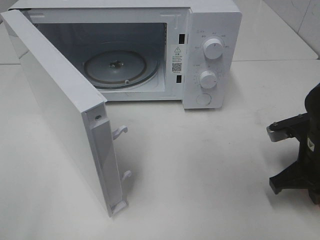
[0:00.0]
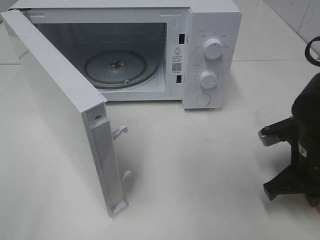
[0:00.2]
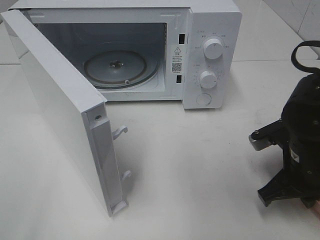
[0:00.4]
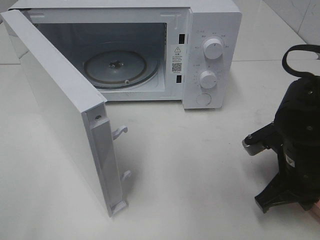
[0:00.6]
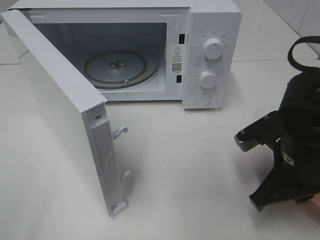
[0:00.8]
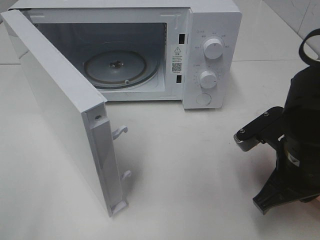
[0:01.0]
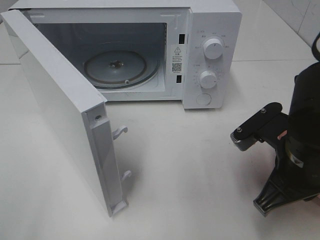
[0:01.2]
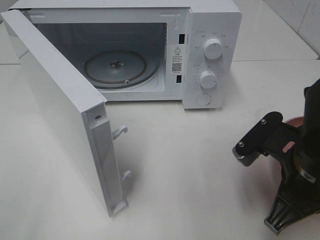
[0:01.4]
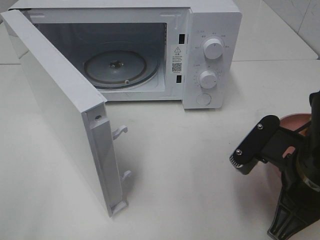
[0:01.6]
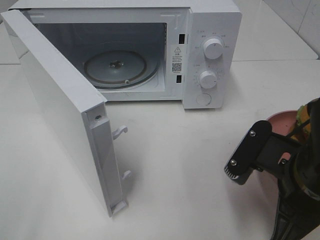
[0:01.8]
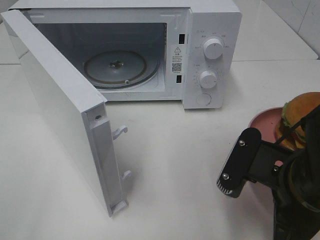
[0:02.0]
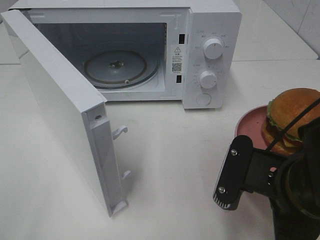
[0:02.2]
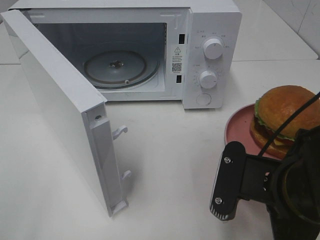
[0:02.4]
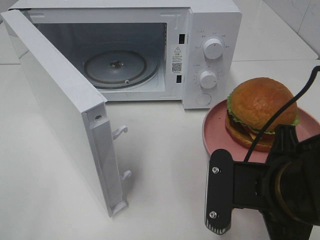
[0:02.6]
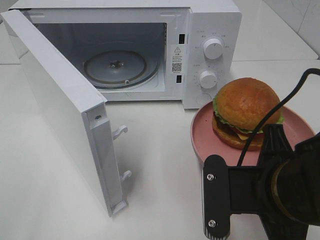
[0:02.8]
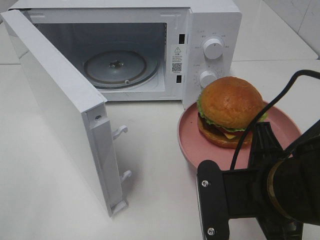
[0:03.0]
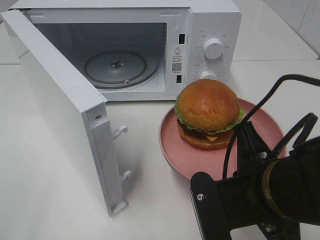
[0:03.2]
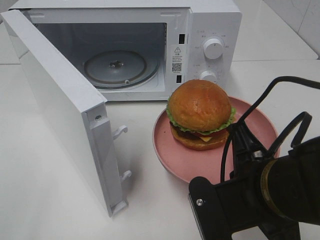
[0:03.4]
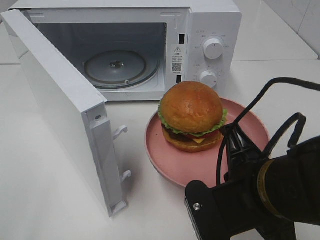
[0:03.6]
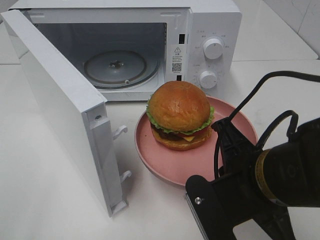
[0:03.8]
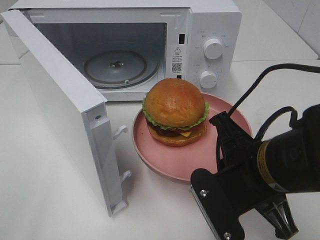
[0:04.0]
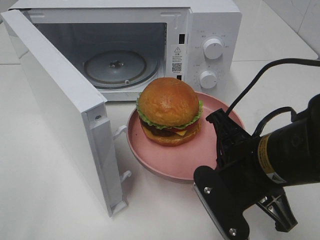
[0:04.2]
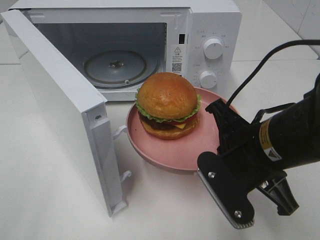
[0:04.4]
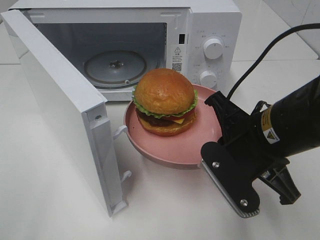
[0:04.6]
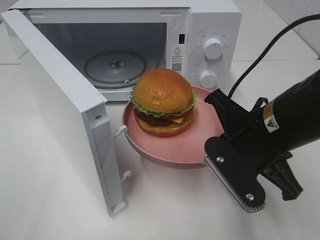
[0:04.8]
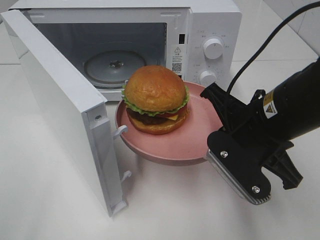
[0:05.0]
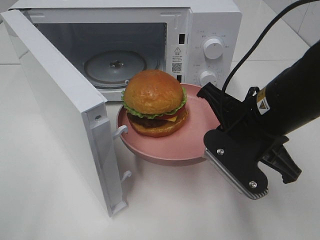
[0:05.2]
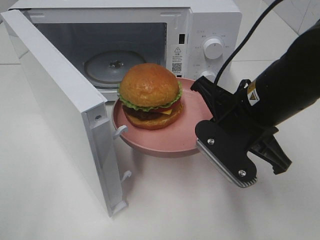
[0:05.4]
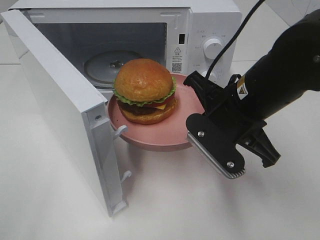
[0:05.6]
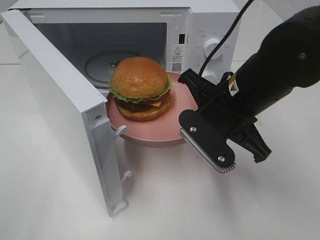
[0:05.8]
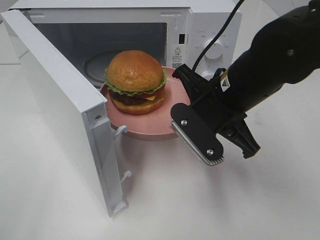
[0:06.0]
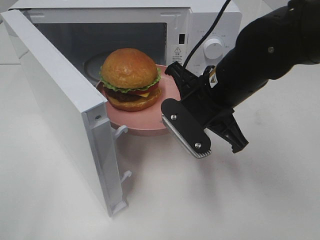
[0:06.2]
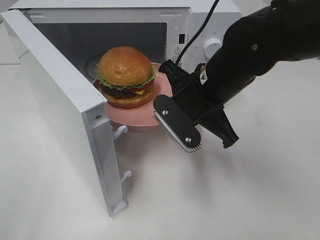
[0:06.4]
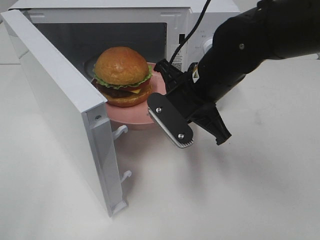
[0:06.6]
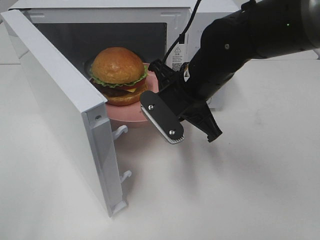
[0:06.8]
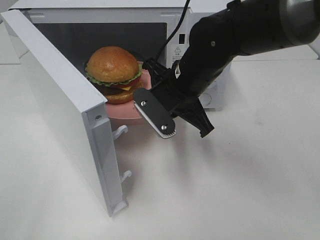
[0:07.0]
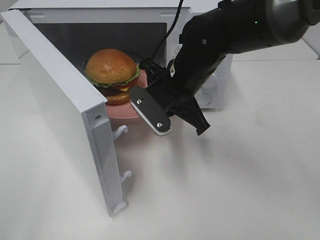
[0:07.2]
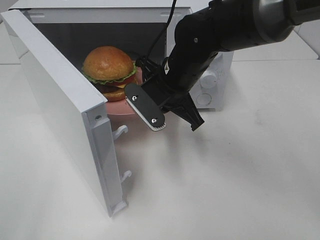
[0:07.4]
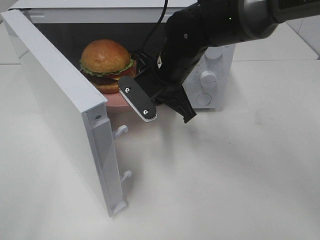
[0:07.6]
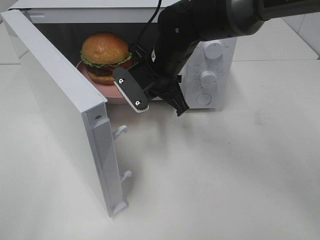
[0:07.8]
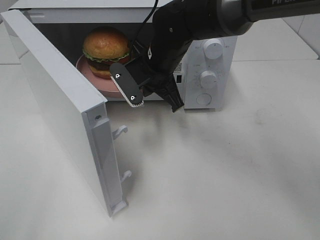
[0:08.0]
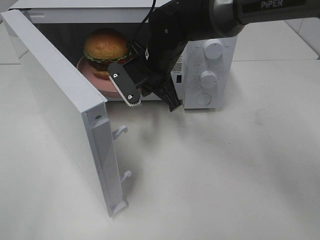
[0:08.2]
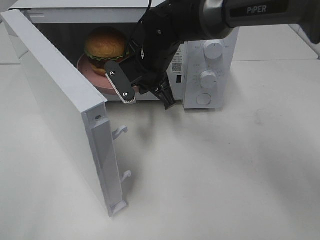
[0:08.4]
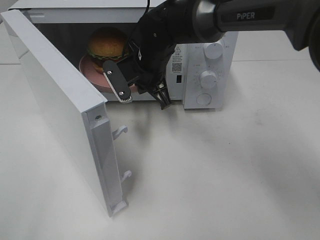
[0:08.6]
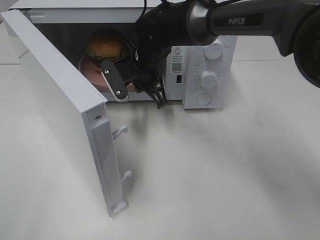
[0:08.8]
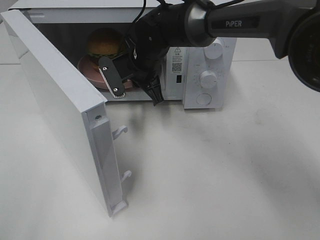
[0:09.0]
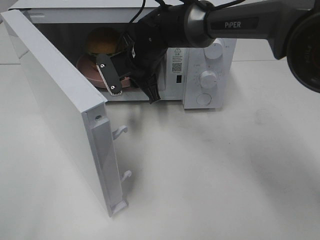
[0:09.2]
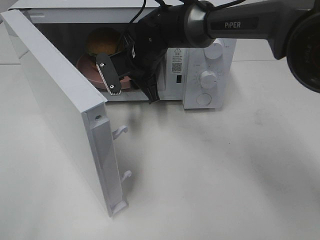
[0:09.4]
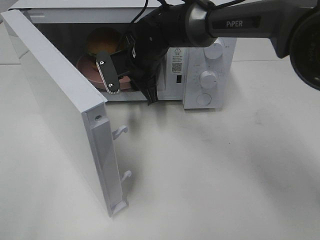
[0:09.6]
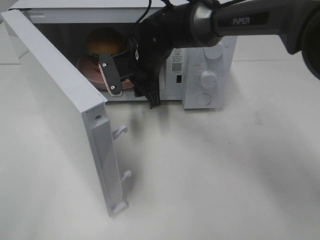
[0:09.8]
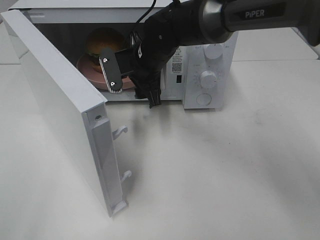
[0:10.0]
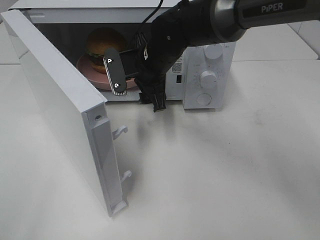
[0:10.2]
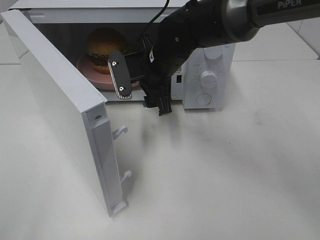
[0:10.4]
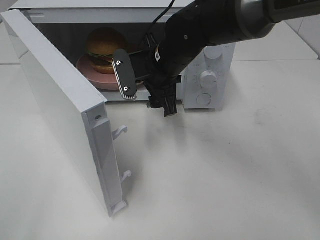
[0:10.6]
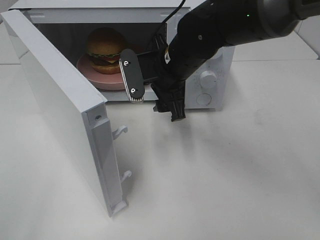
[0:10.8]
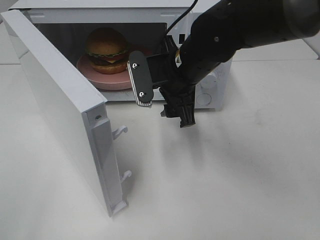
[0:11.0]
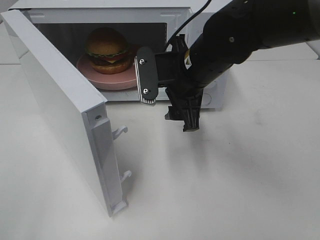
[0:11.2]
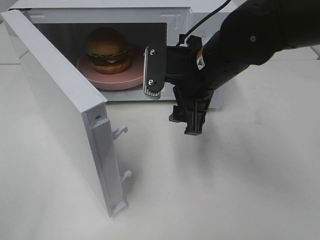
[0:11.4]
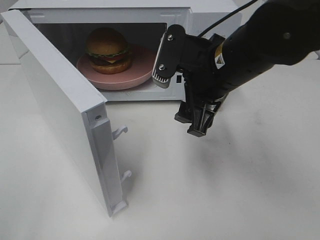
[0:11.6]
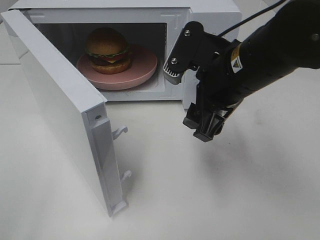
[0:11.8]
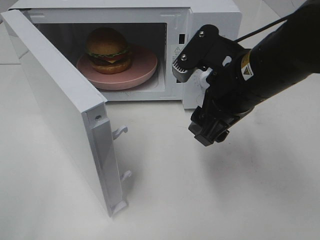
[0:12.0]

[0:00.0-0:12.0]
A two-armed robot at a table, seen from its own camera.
Task of the whole recording: Heat the burger.
Step, 0:00.0 to 0:09.4: Right hand: place the plate in the microwave.
0:00.0 to 0:01.6: The right gripper shifts about 10 cm backward, to the left and upward.
0:01.6 to 0:03.0: The right gripper ends up some 5 cm from where it was.
0:03.0 to 0:04.4: The right gripper travels forward by approximately 5 cm.
0:04.4 to 0:06.0: The right gripper moves forward, roughly 10 cm.
0:06.0 to 0:07.6: The right gripper shifts approximately 10 cm forward and to the left.
0:07.6 to 0:09.0: The right gripper travels forward by about 5 cm.
0:09.0 to 0:10.4: The right gripper shifts by some 5 cm, and opens.
0:10.4 to 0:12.0: The right gripper goes some 15 cm backward, to the right and upward.

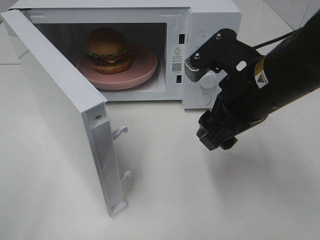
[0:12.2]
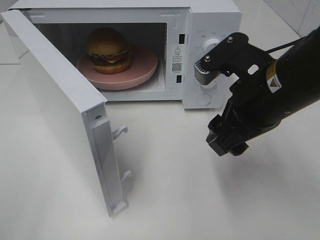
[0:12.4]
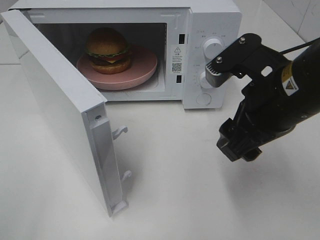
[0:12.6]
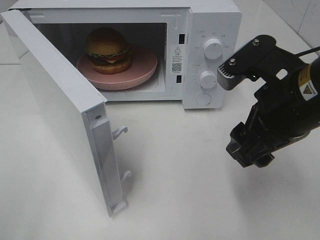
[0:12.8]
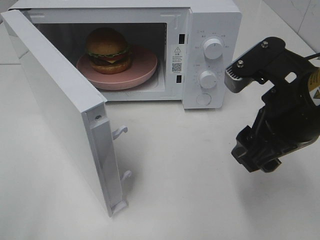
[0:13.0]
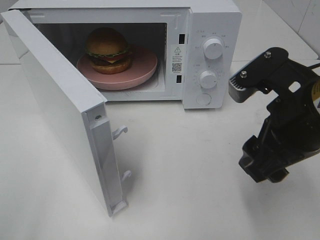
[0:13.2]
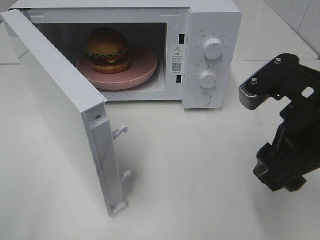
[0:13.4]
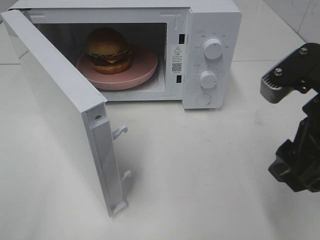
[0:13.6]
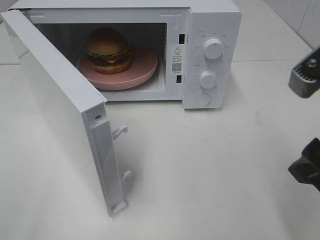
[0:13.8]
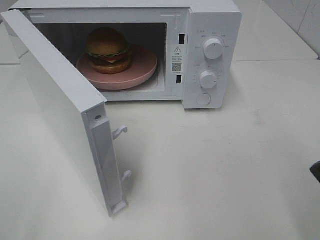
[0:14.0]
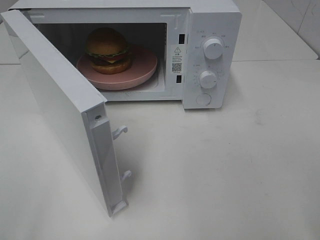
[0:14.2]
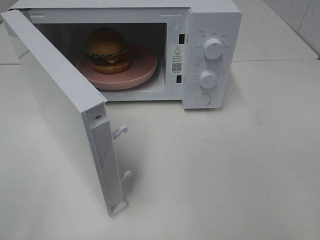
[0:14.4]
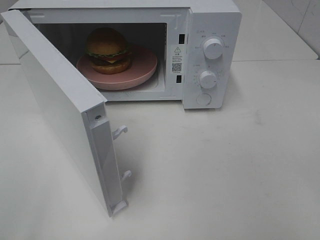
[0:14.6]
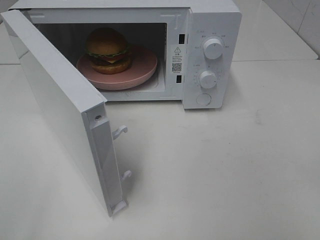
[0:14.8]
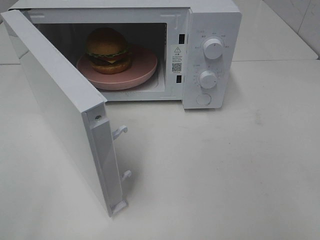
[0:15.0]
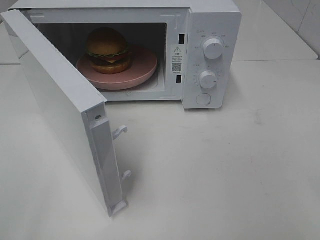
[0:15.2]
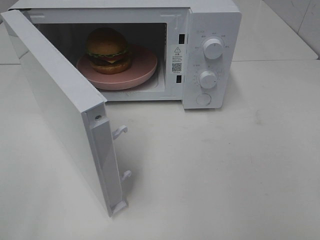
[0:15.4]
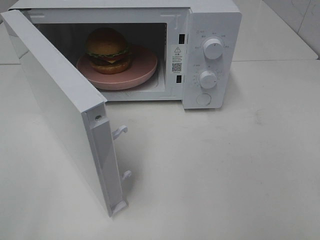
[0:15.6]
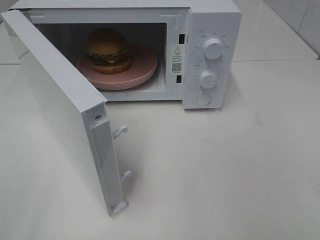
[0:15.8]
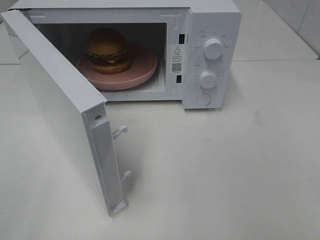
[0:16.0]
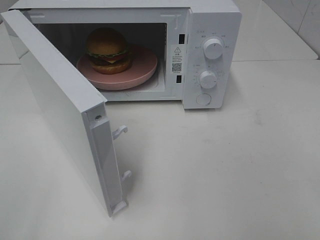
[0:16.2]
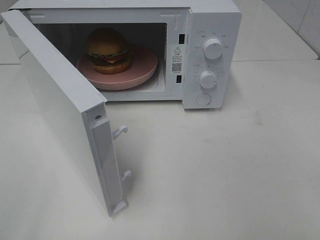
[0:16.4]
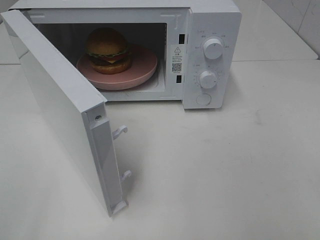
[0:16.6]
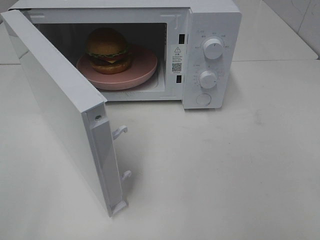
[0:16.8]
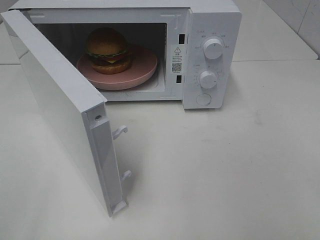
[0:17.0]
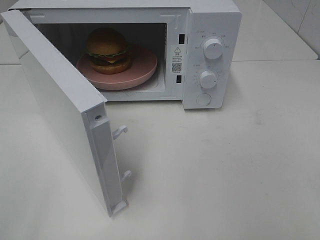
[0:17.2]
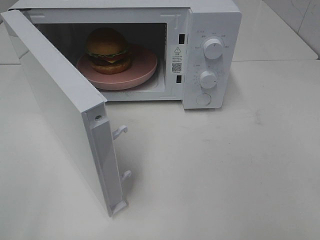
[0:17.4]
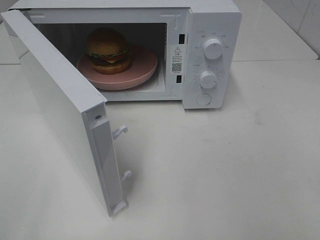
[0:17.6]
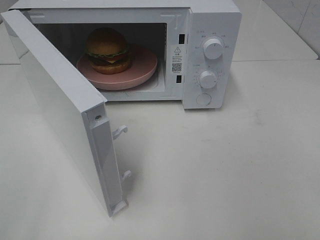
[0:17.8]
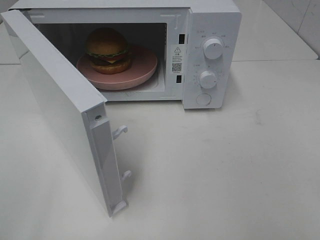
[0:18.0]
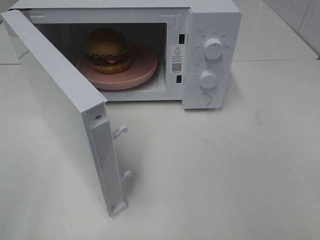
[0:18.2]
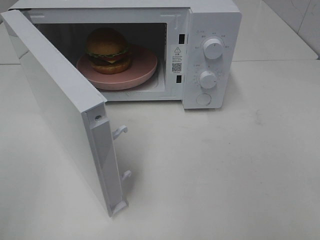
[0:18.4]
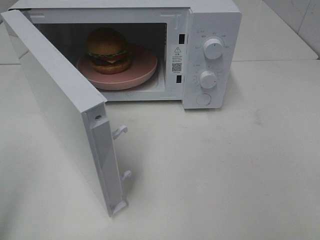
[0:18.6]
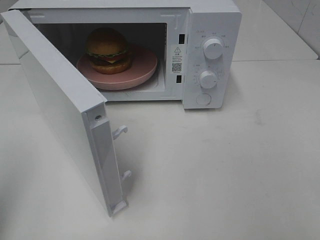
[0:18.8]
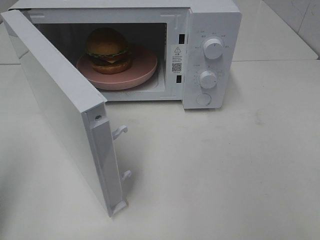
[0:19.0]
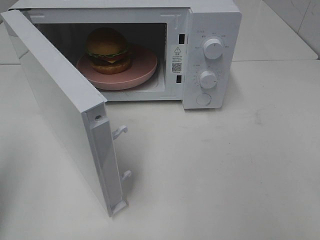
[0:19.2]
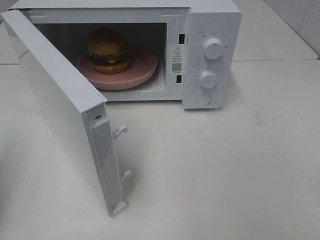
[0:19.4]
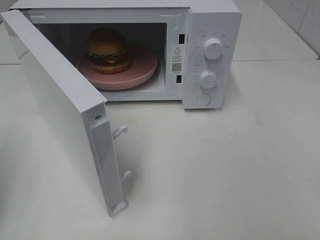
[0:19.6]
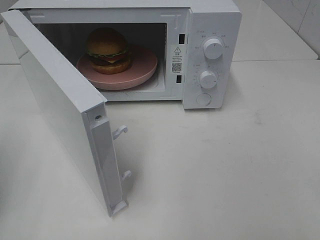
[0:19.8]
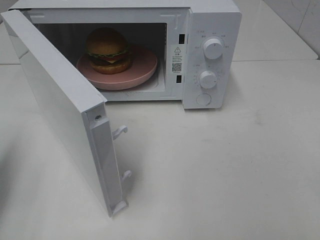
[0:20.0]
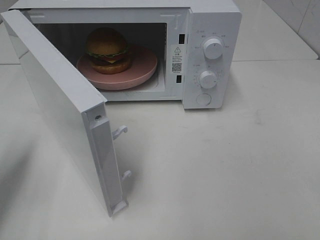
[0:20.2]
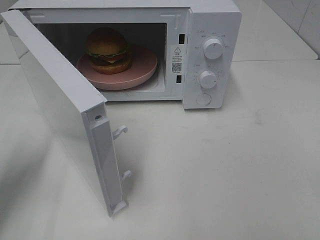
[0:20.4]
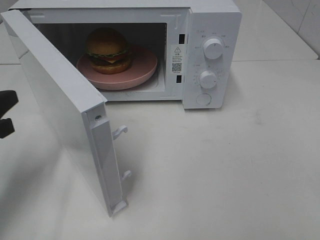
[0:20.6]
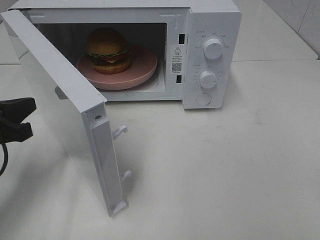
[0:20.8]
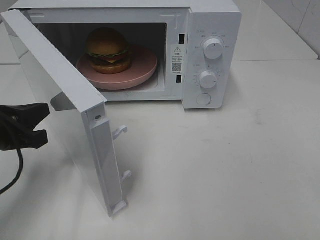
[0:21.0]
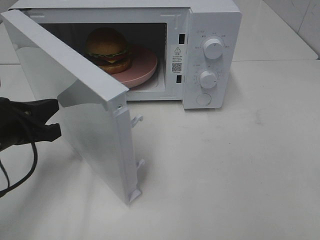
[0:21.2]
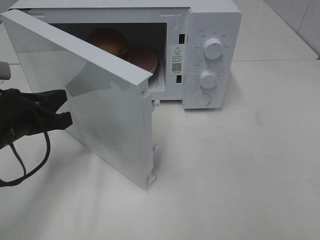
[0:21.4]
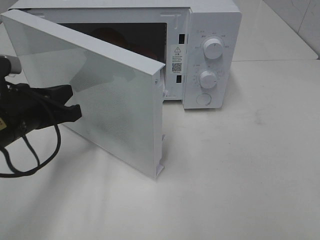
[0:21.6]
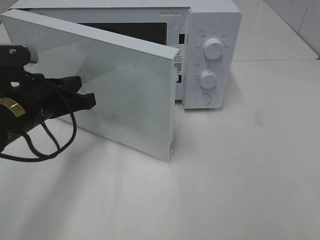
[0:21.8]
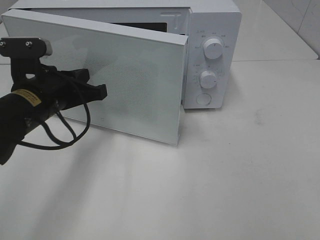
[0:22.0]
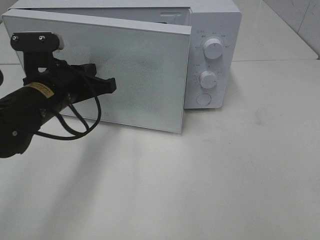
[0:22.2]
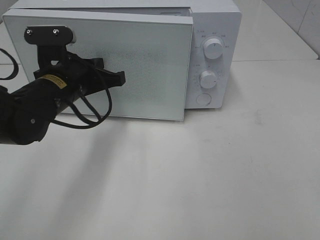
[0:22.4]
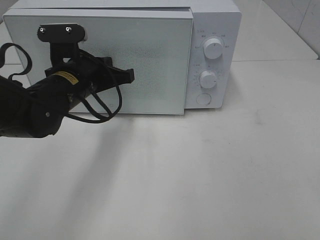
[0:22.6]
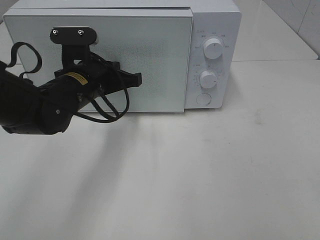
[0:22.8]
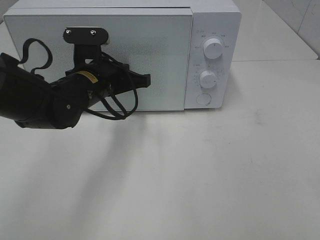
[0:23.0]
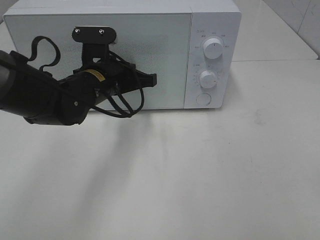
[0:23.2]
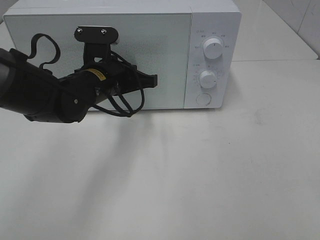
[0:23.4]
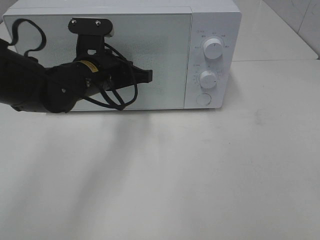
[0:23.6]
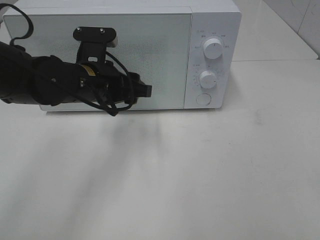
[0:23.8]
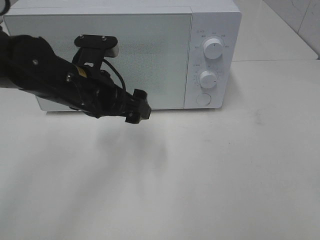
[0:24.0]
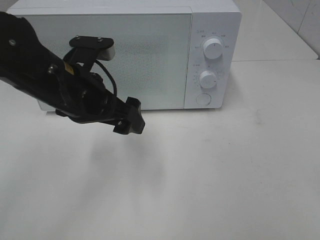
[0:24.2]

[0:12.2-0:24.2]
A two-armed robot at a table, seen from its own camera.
Task of the whole recording: Heat the burger.
Step, 0:12.2 to 0:23.6: Left hand: close the microwave door.
0:12.2 to 0:13.8: The right gripper shifts about 10 cm backward and to the right.
0:13.8 to 0:15.2: The right gripper travels backward and to the right by approximately 15 cm.
0:19.8 to 0:21.2: The left gripper goes some 15 cm to the right, downward and forward.
0:21.2 to 0:22.6: The left gripper goes about 15 cm to the right and forward.
0:22.6 to 0:24.2: The left gripper goes roughly 5 cm backward, and opens.
